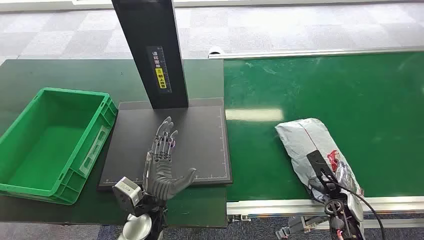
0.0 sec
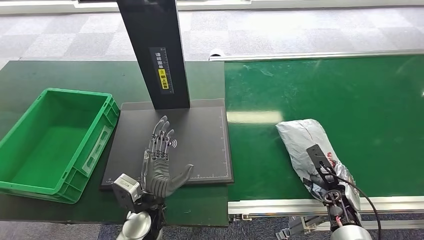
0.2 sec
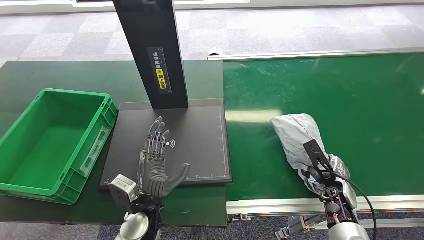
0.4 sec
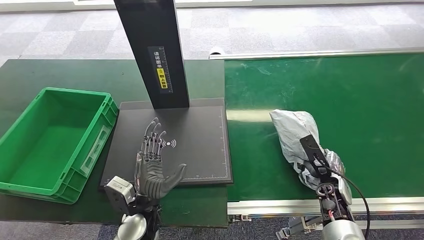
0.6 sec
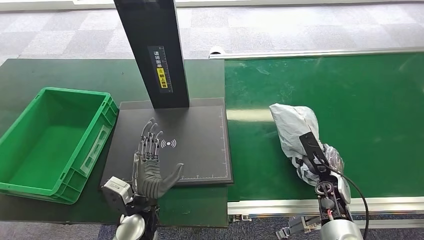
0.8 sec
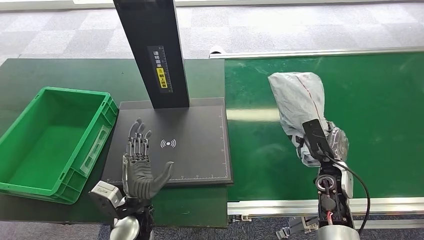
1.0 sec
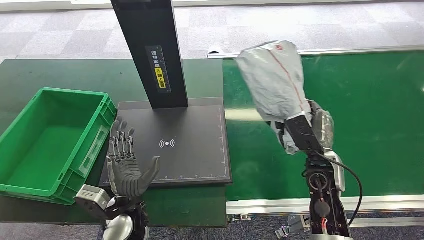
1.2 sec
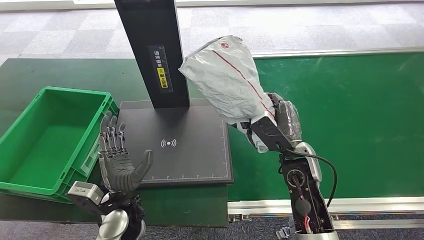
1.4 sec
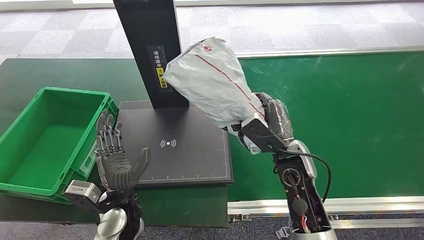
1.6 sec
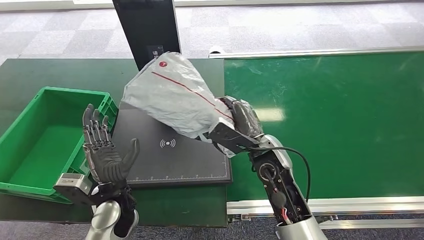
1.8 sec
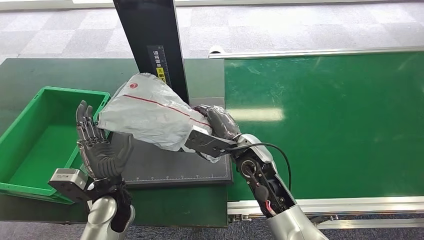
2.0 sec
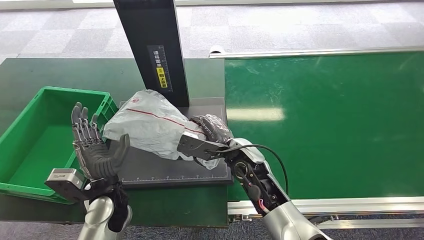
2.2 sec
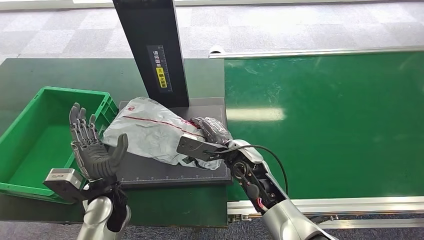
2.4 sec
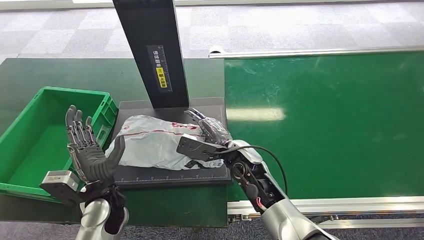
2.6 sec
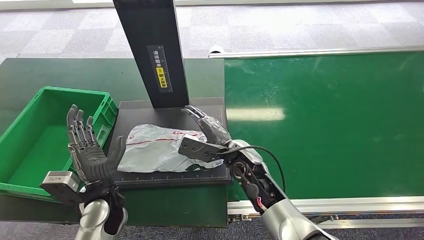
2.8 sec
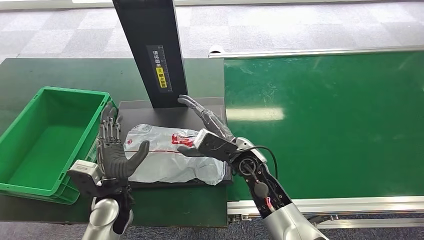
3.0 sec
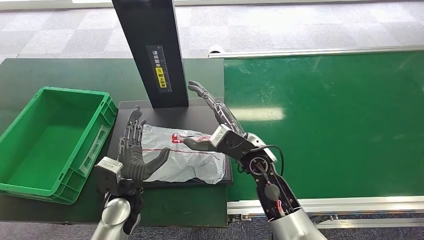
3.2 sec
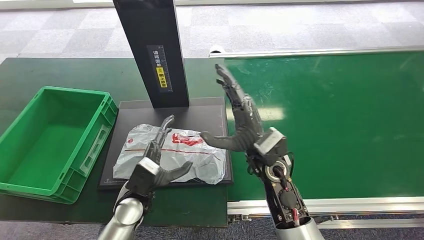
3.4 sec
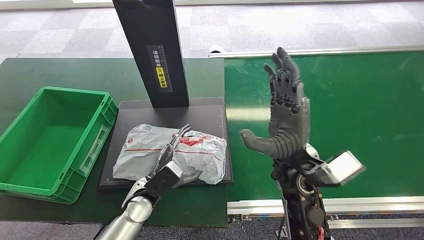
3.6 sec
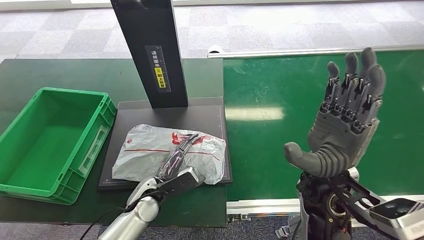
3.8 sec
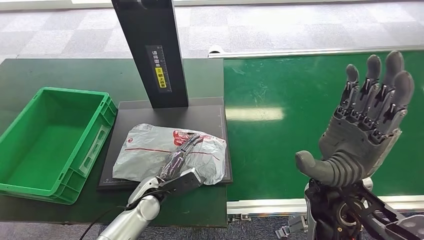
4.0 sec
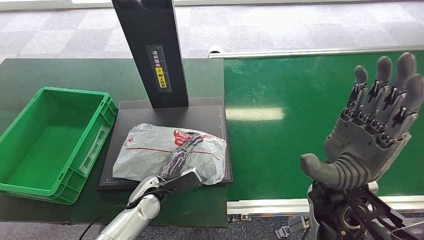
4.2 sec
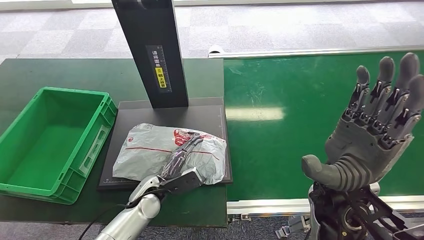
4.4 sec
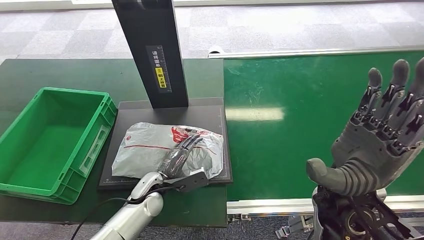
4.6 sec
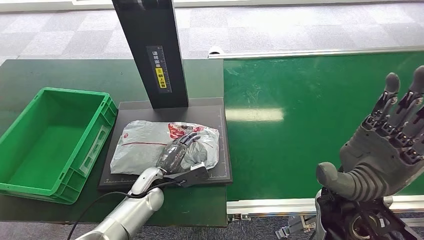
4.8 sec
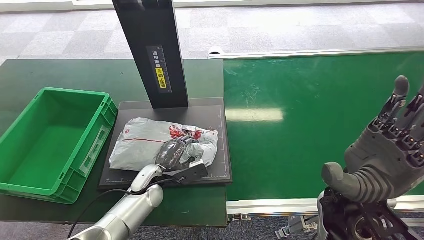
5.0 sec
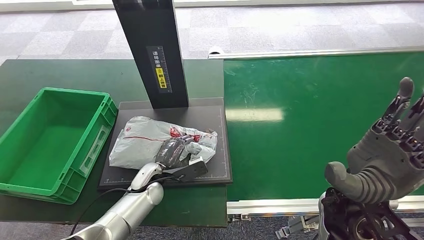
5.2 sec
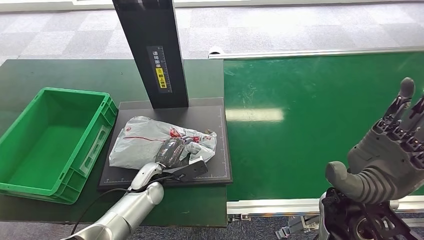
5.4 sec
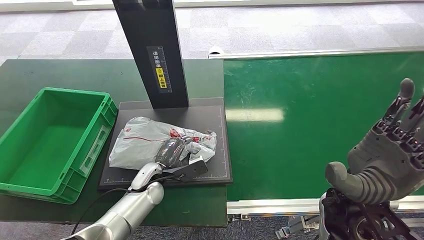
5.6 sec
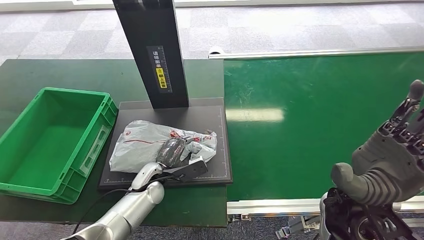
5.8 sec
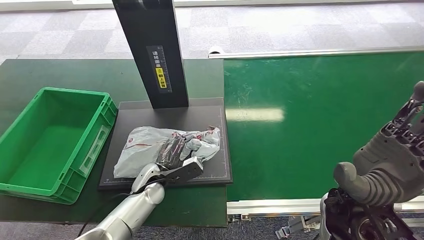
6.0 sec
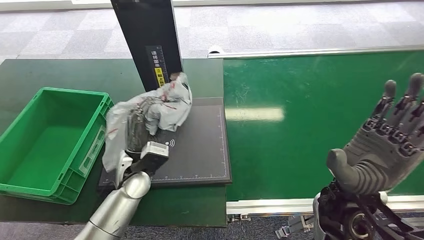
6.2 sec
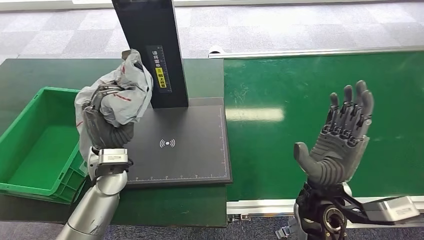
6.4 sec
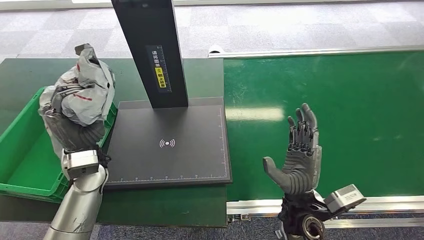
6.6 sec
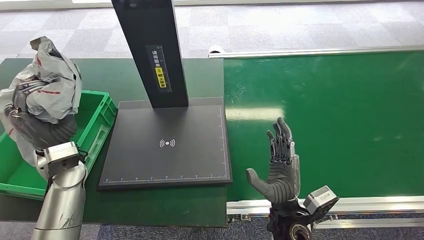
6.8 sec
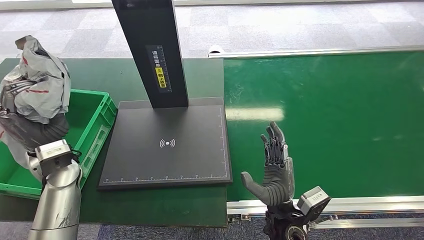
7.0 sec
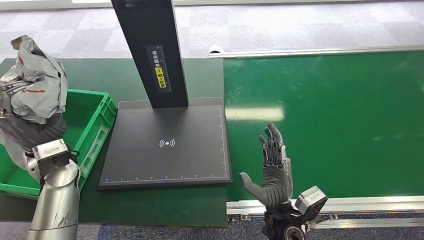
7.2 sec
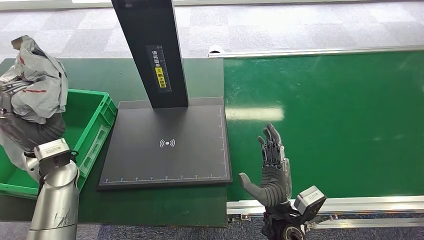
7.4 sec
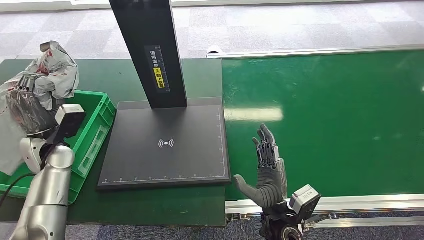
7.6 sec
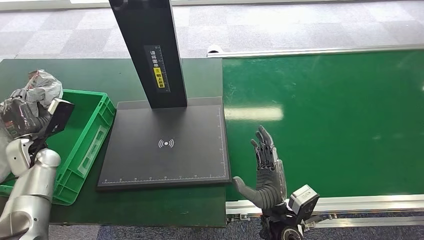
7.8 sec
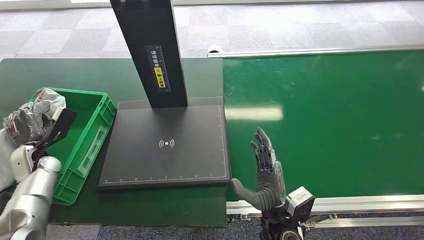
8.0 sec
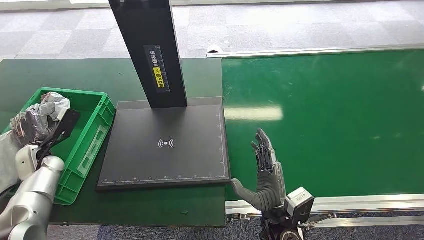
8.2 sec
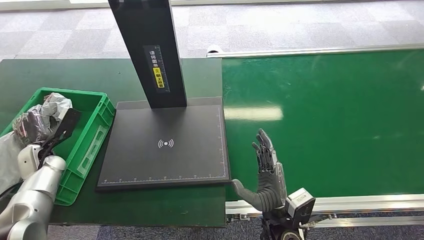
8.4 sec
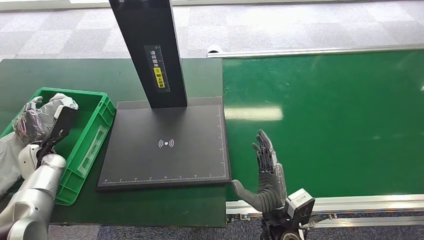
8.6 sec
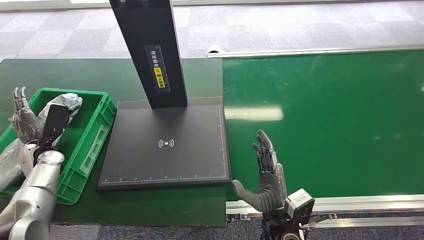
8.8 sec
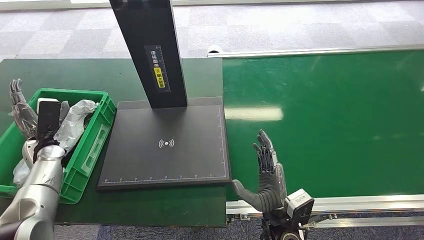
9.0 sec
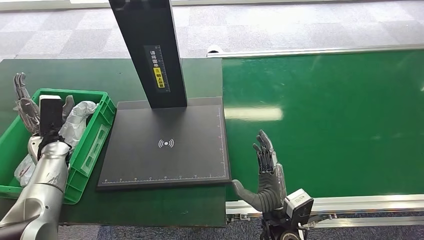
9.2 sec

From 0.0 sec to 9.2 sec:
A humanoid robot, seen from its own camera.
Step, from 0.0 sec to 0.8 sec: Pick up the package from the conveyor belt.
Step, from 1.0 sec to 3.4 sec: Place the package onto the inbound machine.
Step, from 3.6 sec to 6.6 sec: Pick up the package from the inbound machine.
Step, from 6.8 sec to 9.2 sec: Place the package into the parcel locker.
From 4.6 sec to 6.2 sec: The left hand shifts about 10 cm upward.
From 7.6 sec to 9.2 sec: The left hand travels downward by roughly 5 cm.
